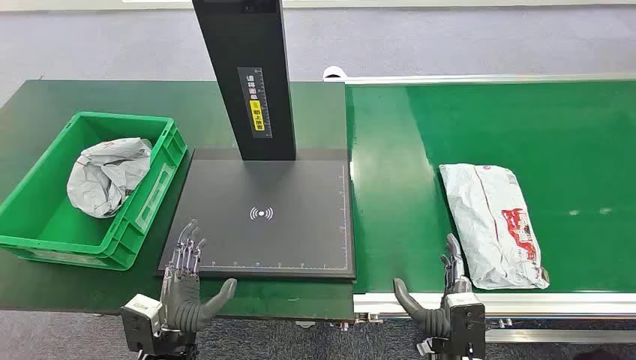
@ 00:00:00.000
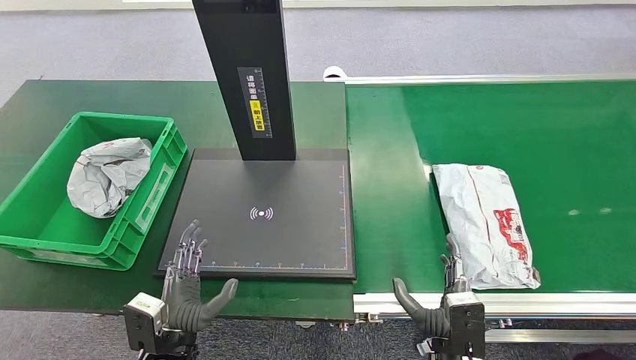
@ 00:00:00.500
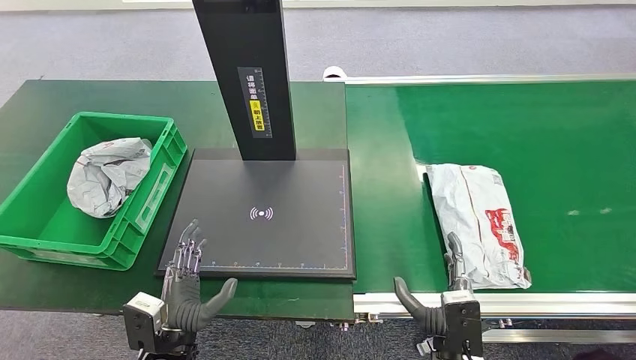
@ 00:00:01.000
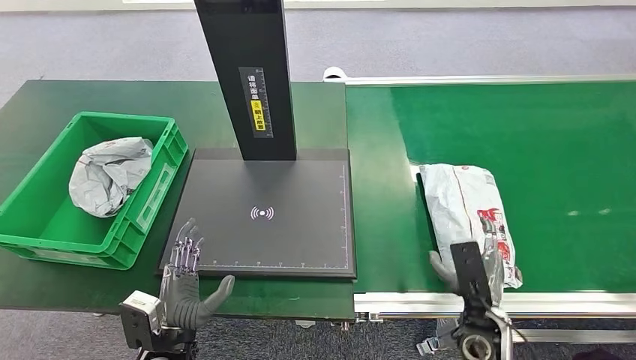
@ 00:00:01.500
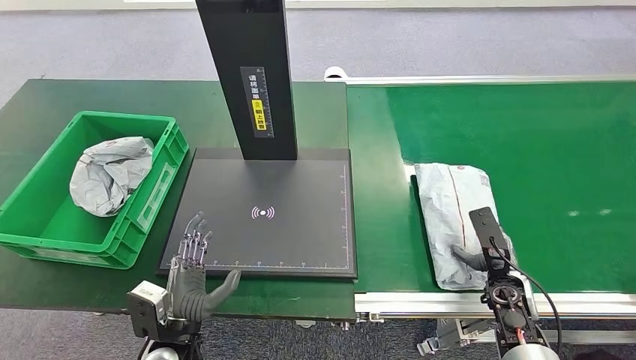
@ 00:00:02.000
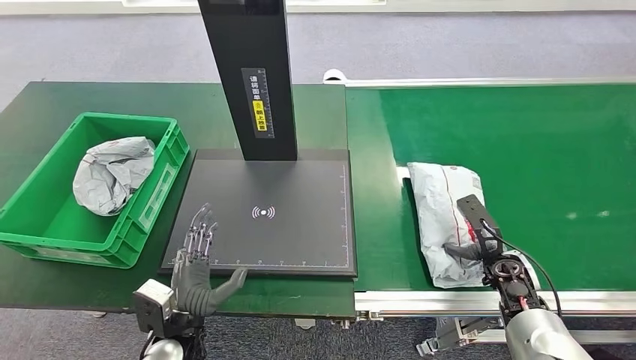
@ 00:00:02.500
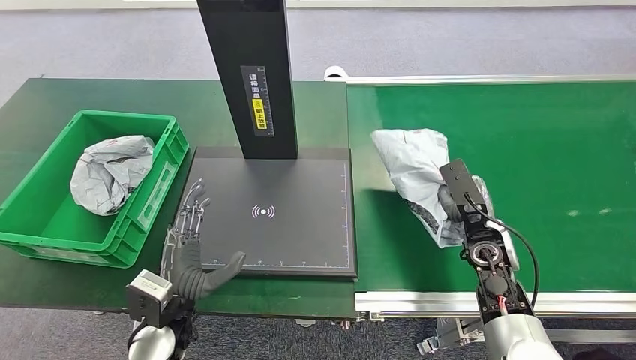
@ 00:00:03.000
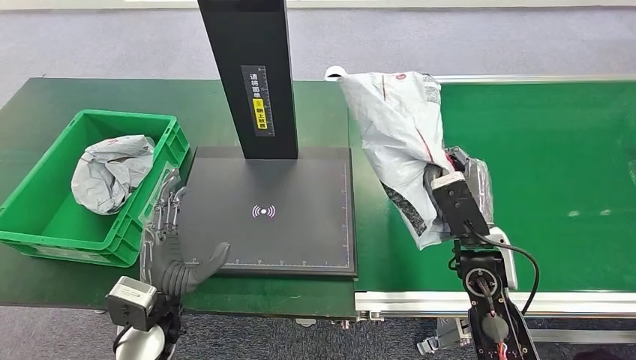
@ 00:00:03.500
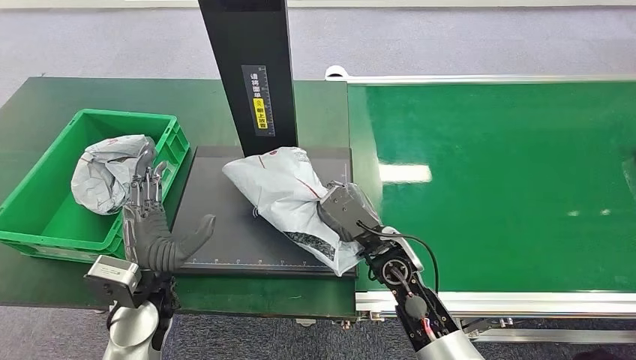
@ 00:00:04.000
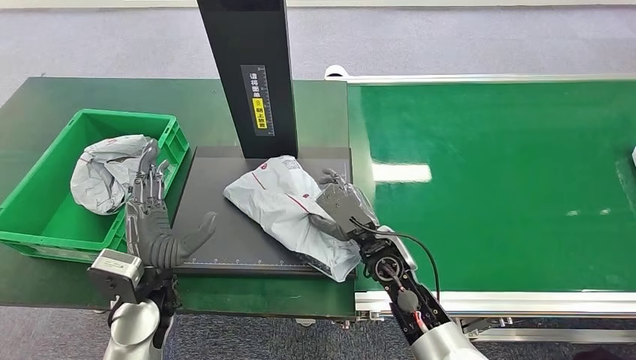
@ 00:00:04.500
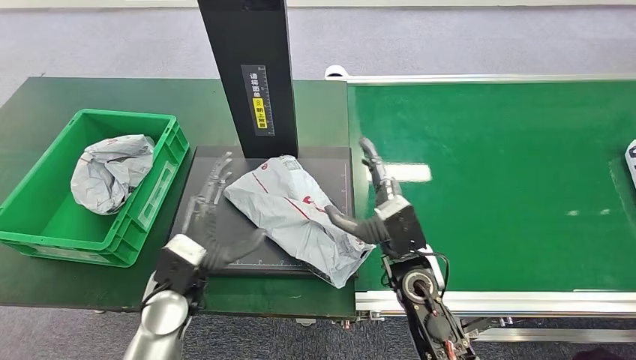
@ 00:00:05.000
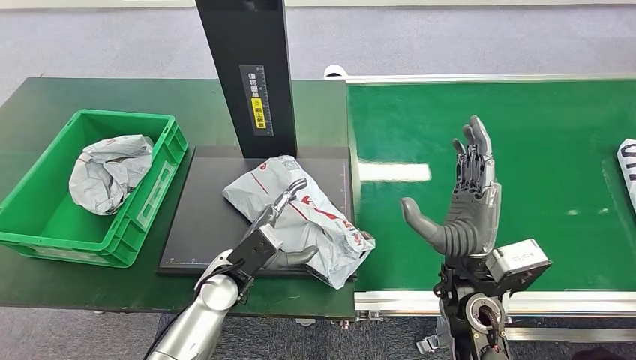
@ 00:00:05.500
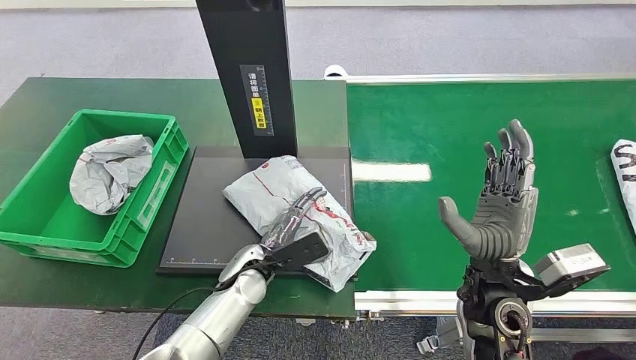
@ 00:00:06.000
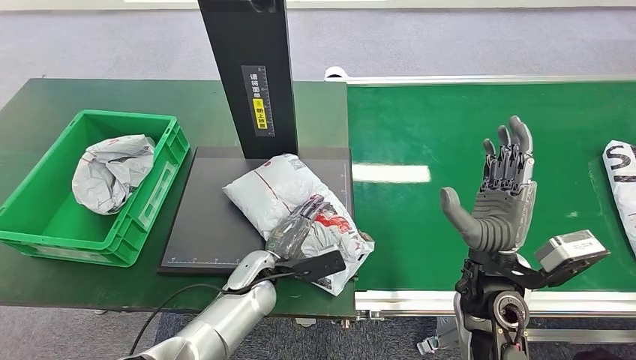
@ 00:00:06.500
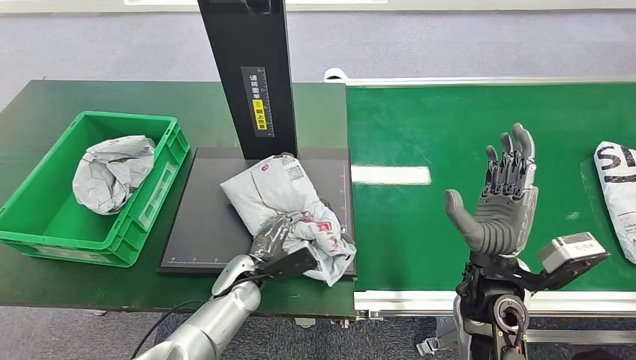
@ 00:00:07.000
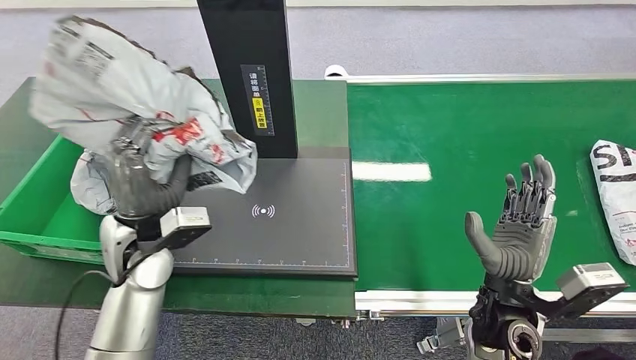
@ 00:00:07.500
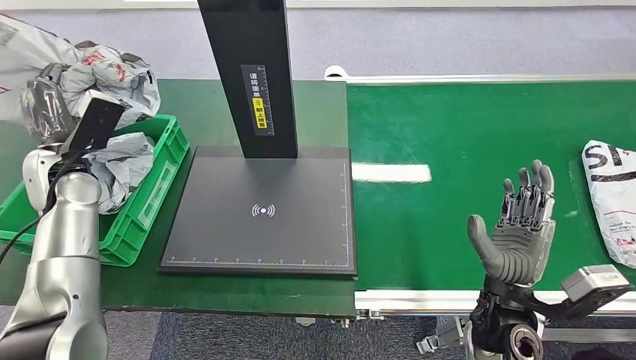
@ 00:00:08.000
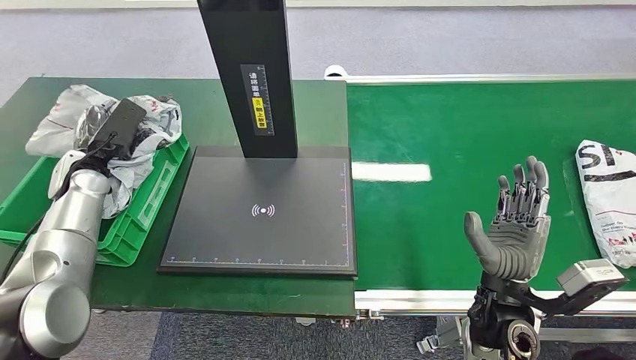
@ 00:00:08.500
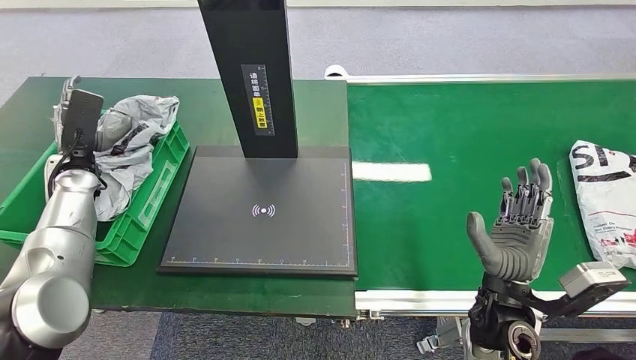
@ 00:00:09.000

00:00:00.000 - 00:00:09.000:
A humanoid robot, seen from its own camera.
Step, 00:00:00.000 - 00:00:03.000: Pick up the package from the conveyor belt.
Step, 00:00:03.500 - 00:00:05.000: Place the package onto the inbound machine.
Step, 00:00:05.500 - 00:00:07.500: Pick up the package from the inbound machine.
Step, 00:00:08.000 - 00:00:09.000: Place the package into the parcel locker.
